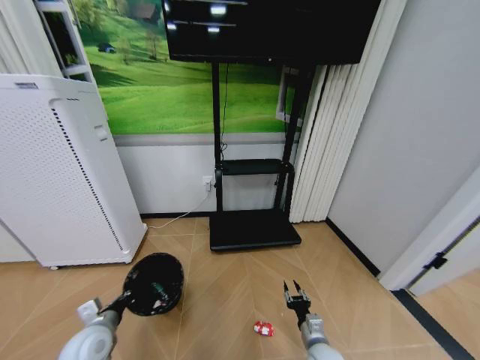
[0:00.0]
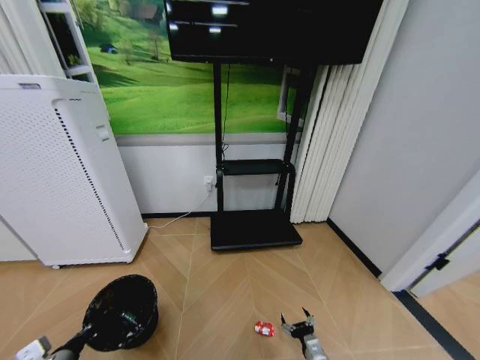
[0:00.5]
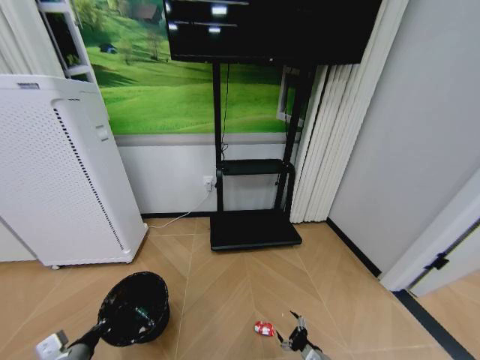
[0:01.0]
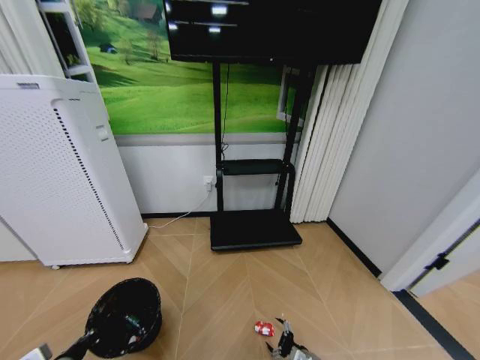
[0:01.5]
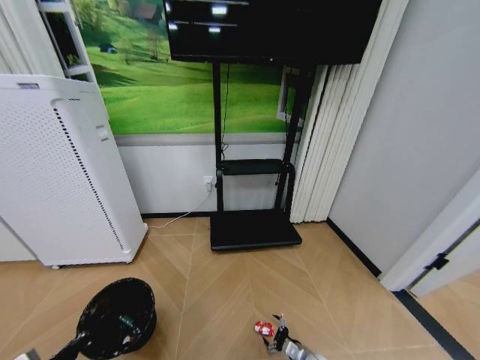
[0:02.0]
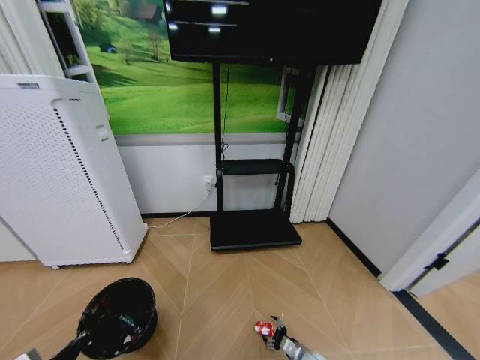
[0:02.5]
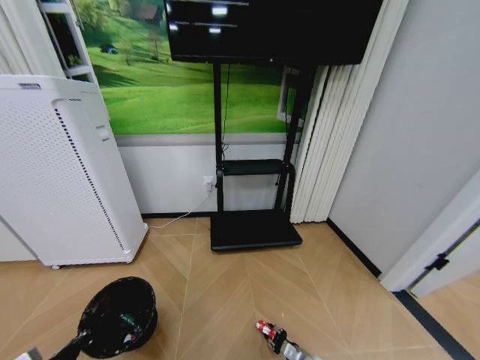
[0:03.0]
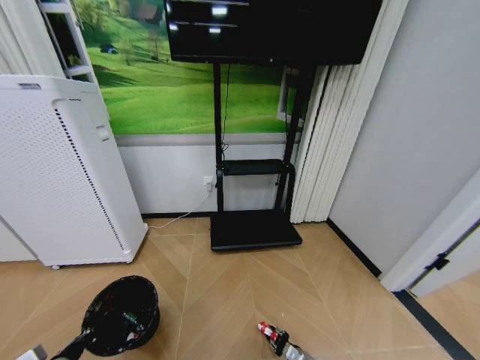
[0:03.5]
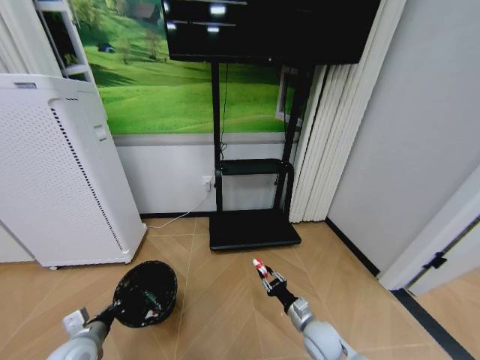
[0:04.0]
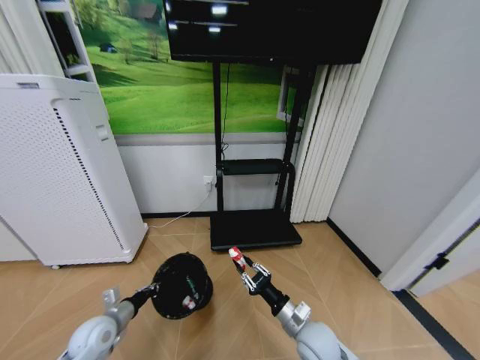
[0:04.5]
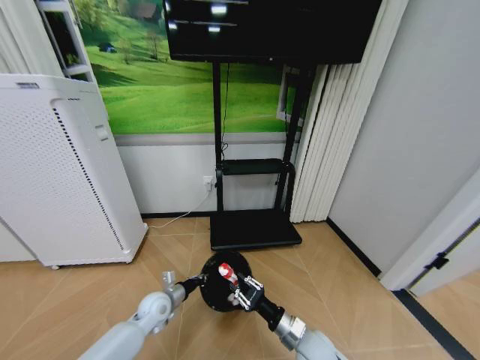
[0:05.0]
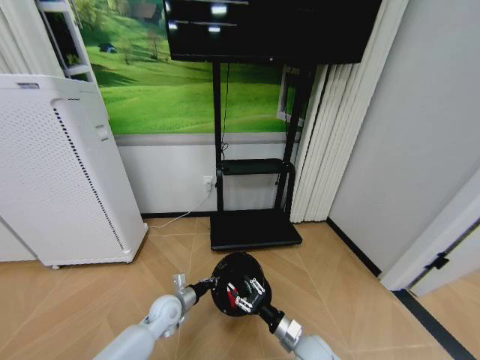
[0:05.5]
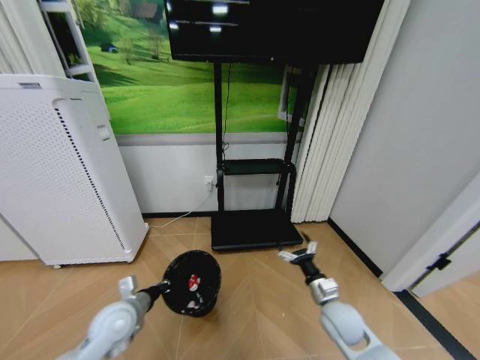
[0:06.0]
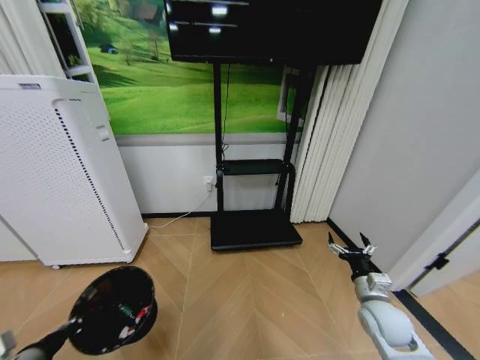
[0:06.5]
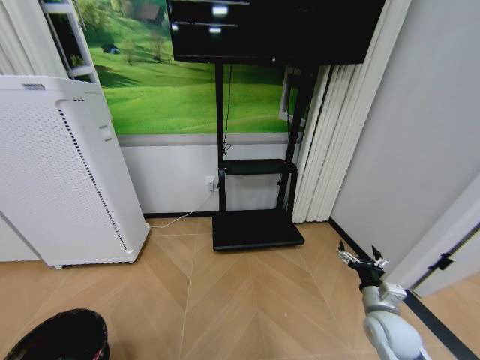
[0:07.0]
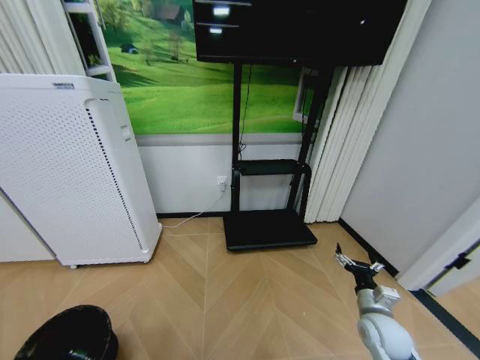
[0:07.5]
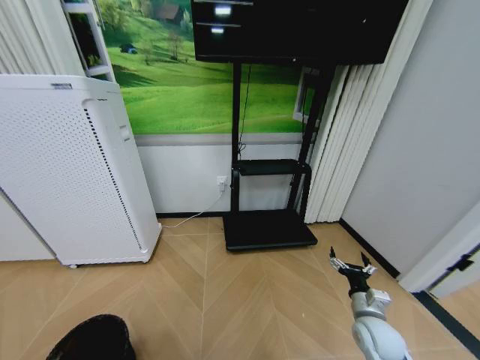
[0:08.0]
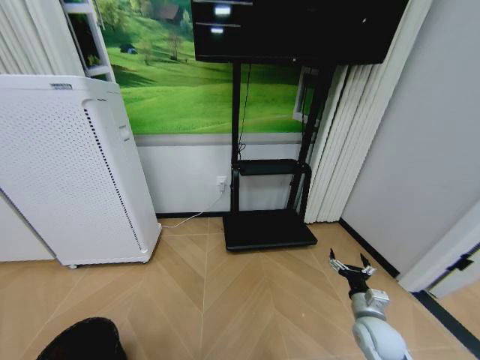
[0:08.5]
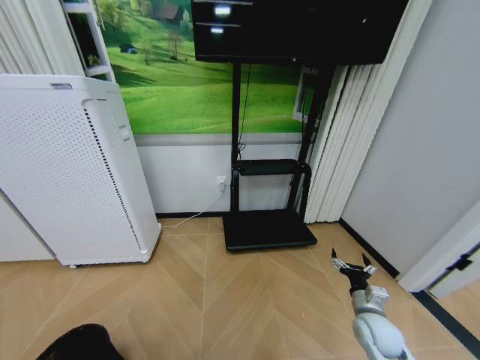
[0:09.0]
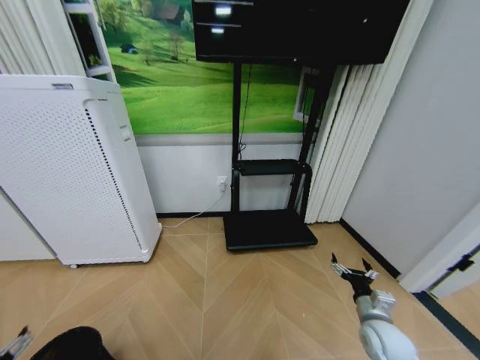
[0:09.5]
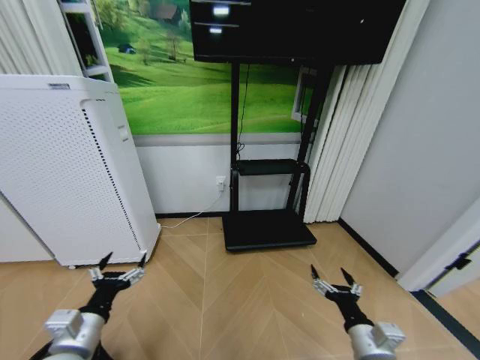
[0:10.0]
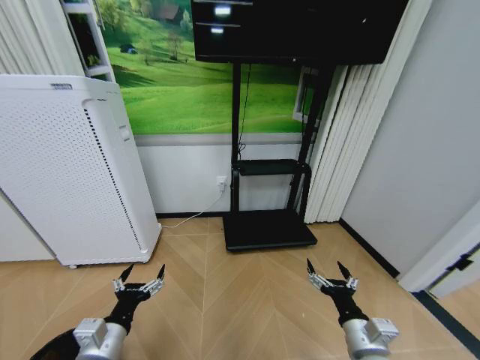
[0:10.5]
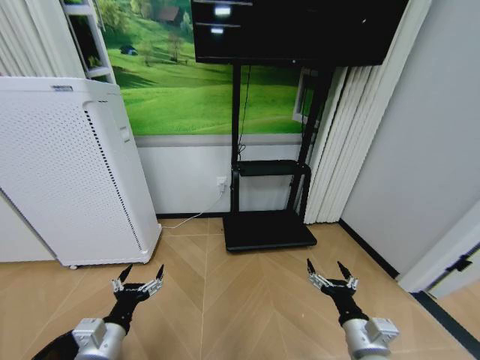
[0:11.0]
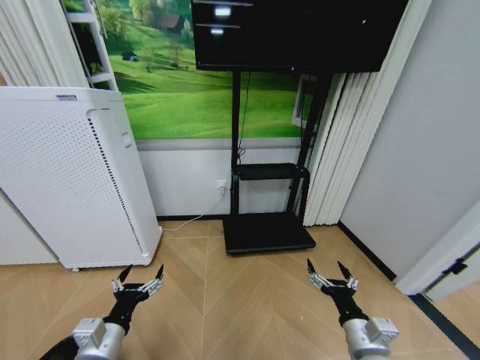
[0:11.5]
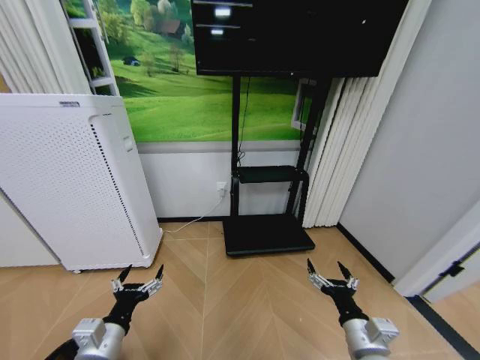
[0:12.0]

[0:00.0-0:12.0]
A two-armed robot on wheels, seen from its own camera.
Task of the whole recording: Pick up the trash bin and place the garbage on the floor into it.
0:00.0 to 0:02.0: The left gripper heads backward, covering approximately 10 cm, while the right gripper heads downward, covering approximately 10 cm, and opens up.
0:02.0 to 0:04.0: The left gripper is displaced forward by about 10 cm; the right gripper moves upward, about 15 cm, and closes.
0:04.0 to 0:06.0: The right gripper swings up and down, some 10 cm each way, with 2 reversals, and opens. The left gripper moves to the right and forward, roughly 10 cm.
0:06.0 to 0:08.0: The right gripper travels to the right by roughly 10 cm, while the left gripper travels backward and to the left by approximately 30 cm.
0:08.0 to 0:10.0: The right gripper shifts about 10 cm backward, to the left and upward; the left gripper moves to the right, forward and upward, some 20 cm, and opens up.
0:10.0 to 0:12.0: The left gripper changes place by some 5 cm.

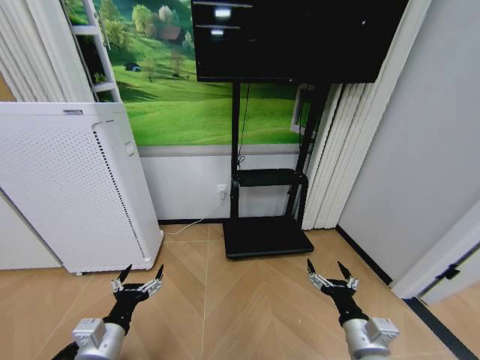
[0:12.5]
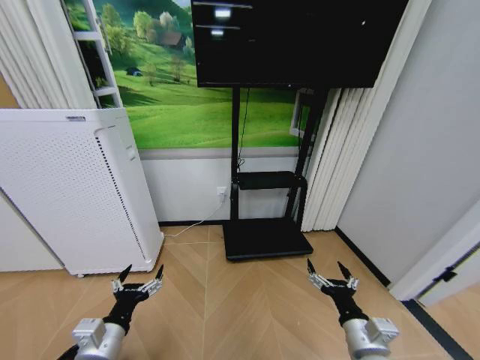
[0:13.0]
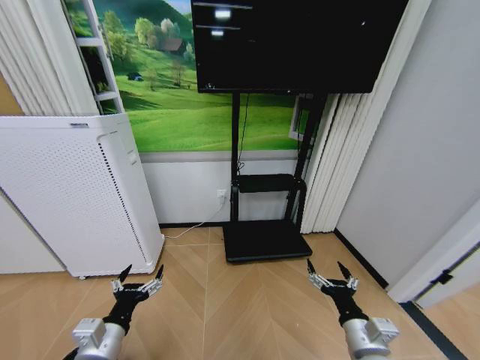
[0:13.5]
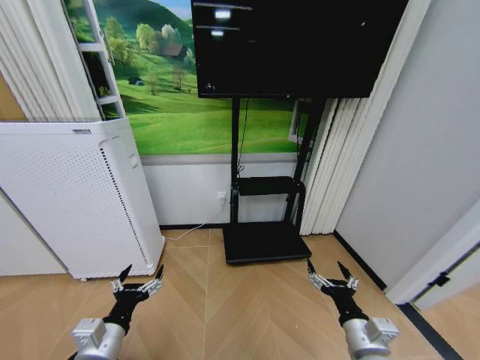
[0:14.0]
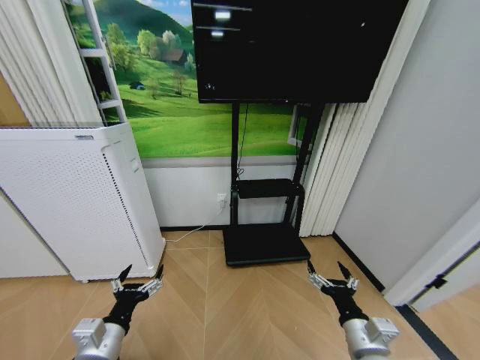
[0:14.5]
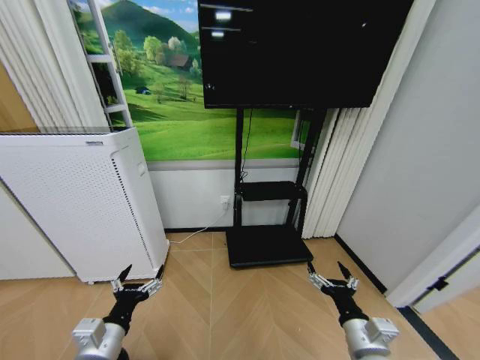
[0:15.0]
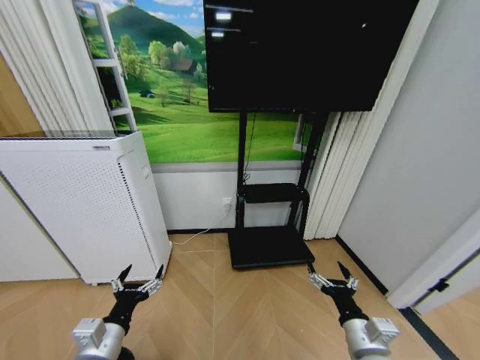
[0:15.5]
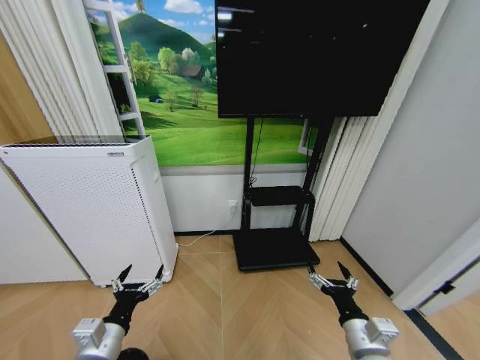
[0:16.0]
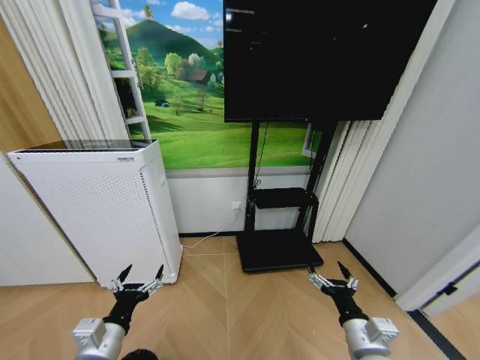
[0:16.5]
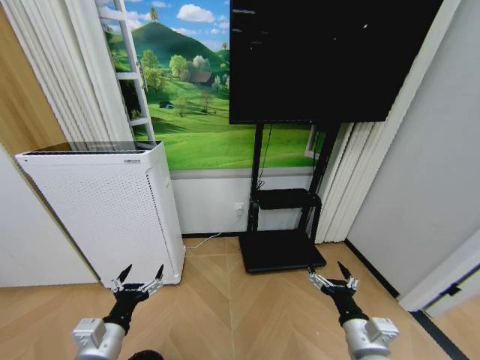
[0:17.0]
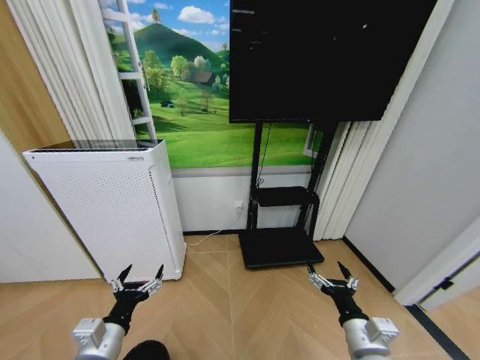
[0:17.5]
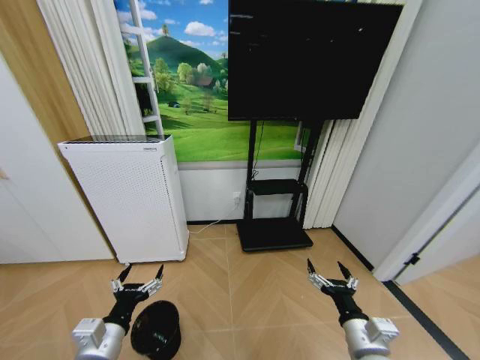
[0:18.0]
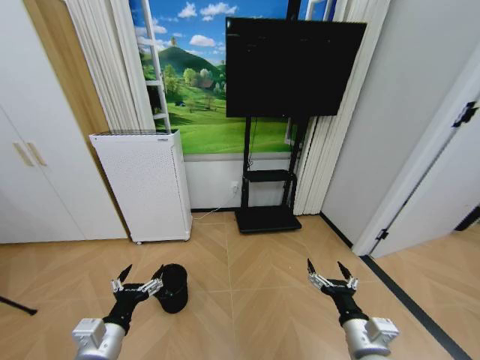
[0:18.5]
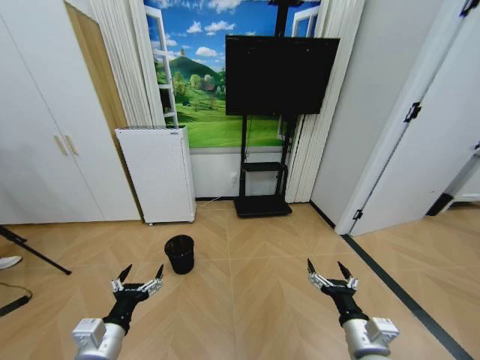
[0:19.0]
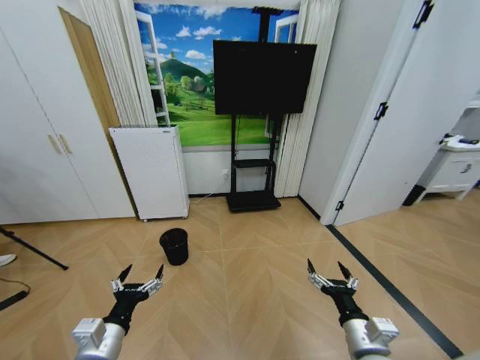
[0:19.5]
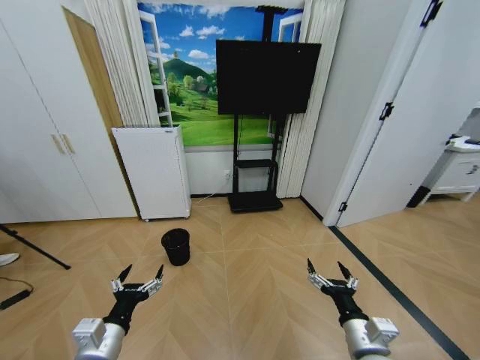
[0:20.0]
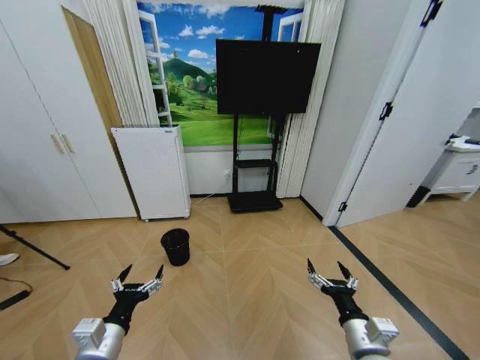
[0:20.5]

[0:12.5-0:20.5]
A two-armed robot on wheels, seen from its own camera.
Task of the whole recording: Pick up the trash bin and place the garbage on the floor into it.
0:12.5 to 0:14.5: Both grippers stay put.

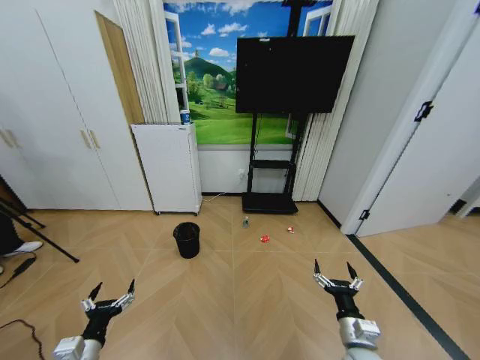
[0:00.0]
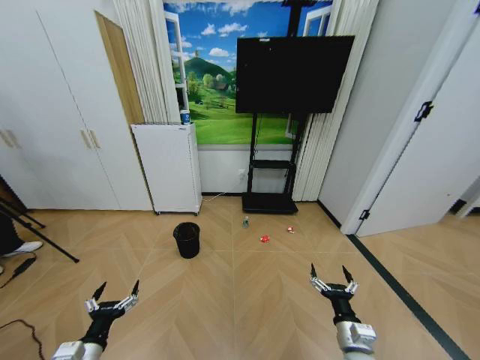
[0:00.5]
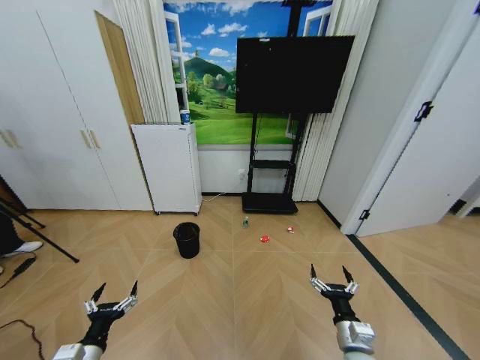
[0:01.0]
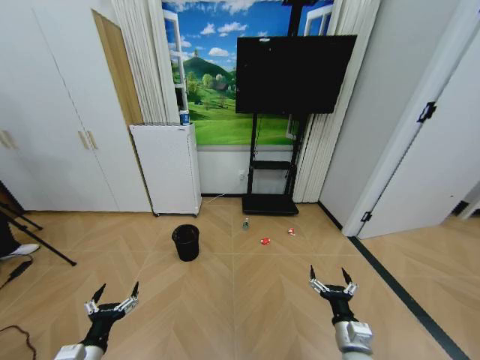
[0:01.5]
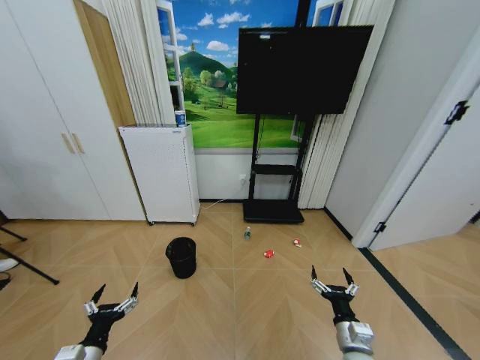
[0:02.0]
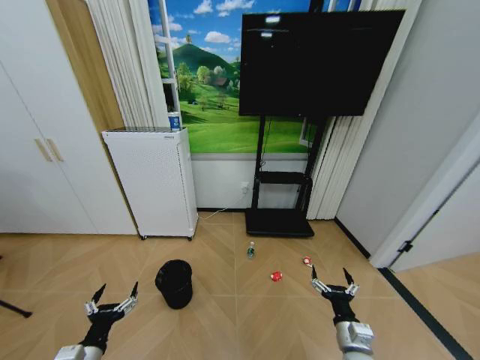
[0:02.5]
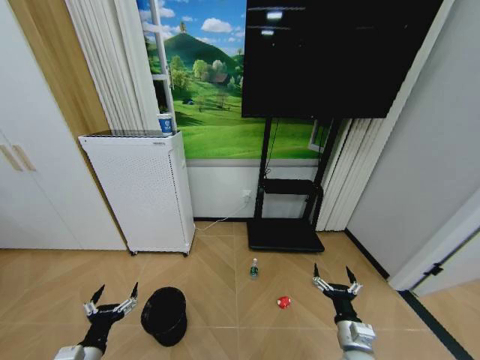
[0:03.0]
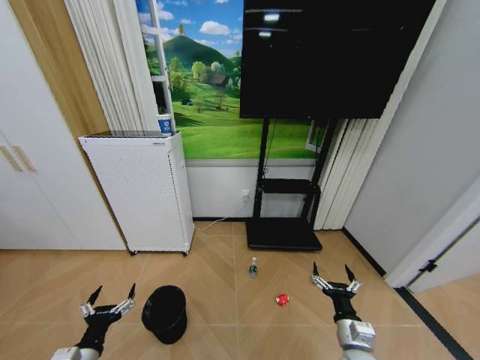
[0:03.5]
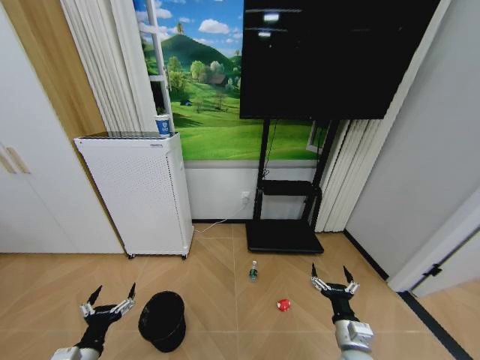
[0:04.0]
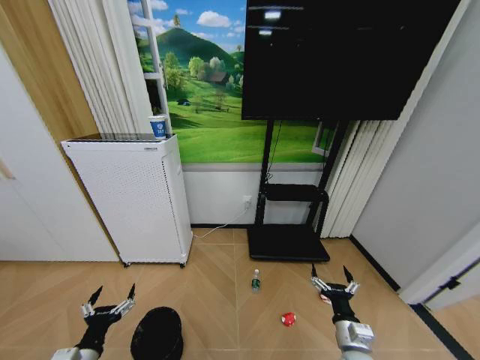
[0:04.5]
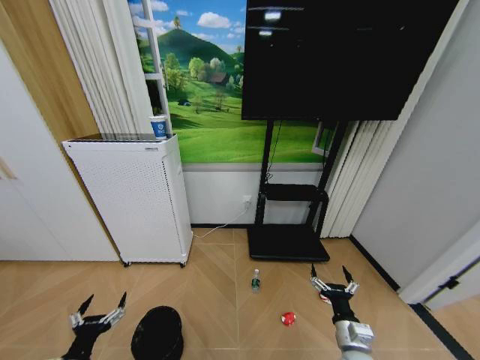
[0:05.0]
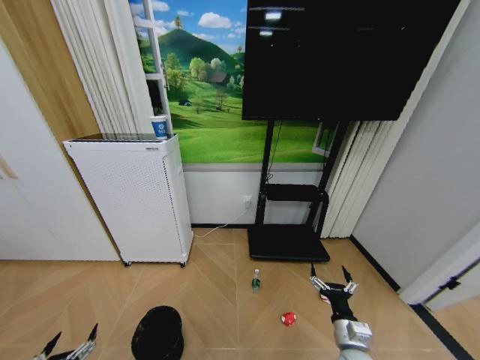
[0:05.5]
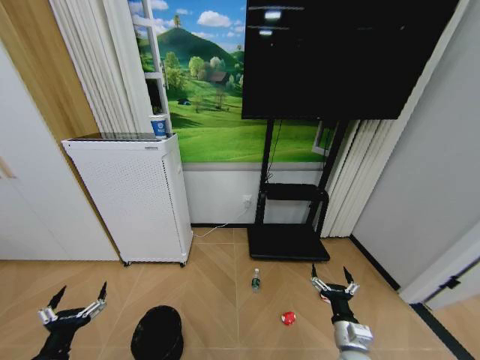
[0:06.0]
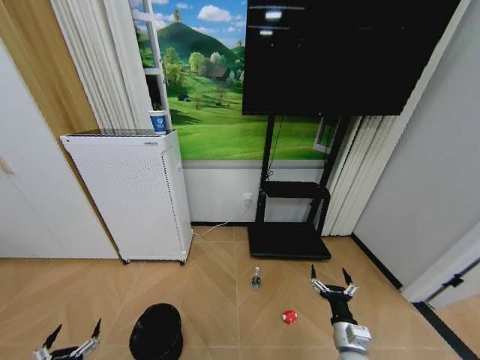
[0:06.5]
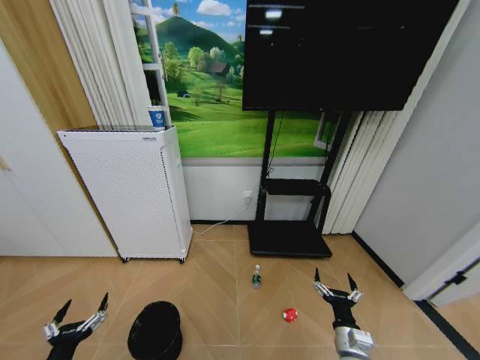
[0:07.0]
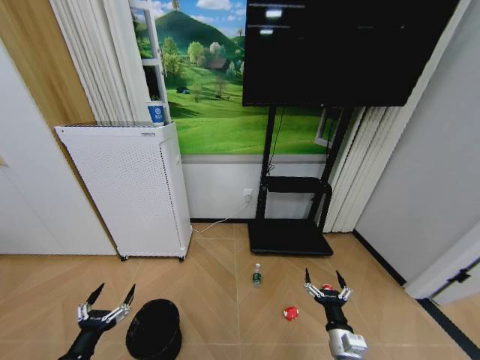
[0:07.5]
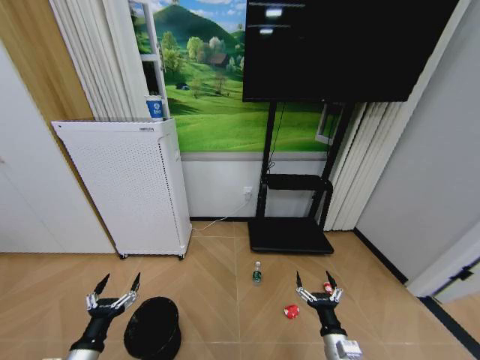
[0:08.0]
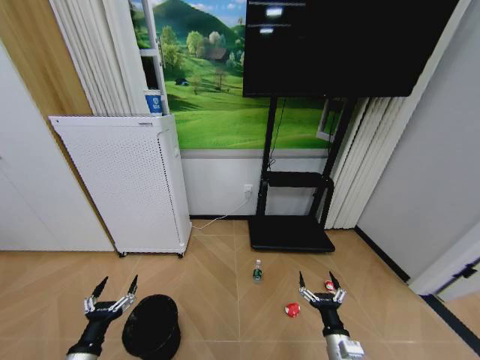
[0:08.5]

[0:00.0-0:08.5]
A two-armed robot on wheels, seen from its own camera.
Task of the whole recording: Pick up the trash bin and place the garbage on the floor into it.
0:04.0 to 0:06.5: The left gripper heads backward, to the left and downward, covering about 10 cm.
0:06.5 to 0:08.5: The left gripper is displaced forward, to the right and upward by some 10 cm.
